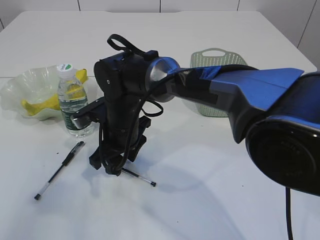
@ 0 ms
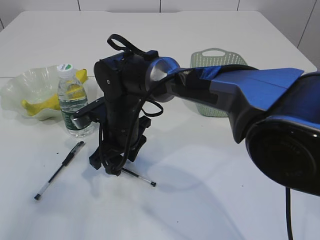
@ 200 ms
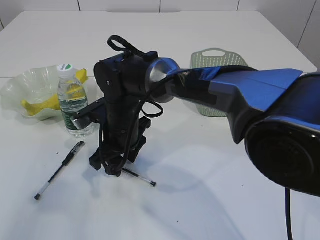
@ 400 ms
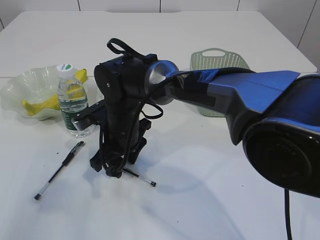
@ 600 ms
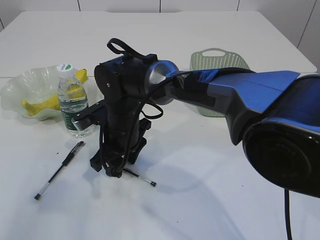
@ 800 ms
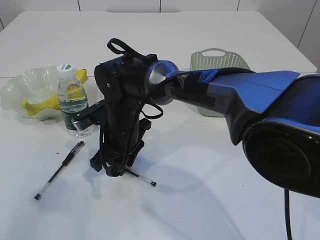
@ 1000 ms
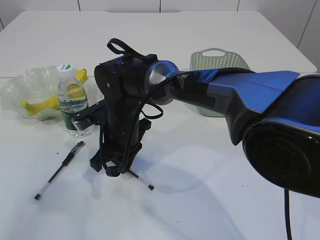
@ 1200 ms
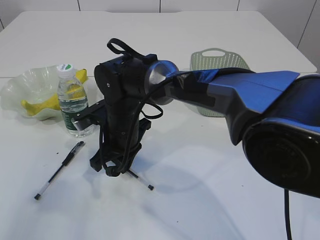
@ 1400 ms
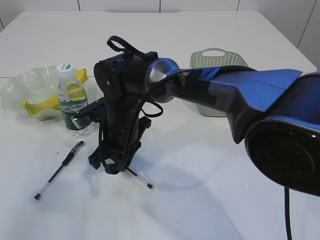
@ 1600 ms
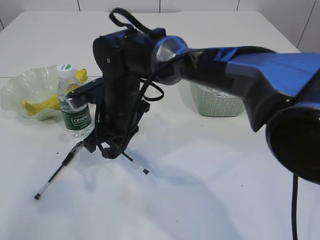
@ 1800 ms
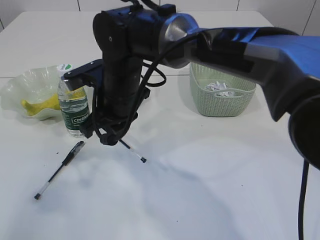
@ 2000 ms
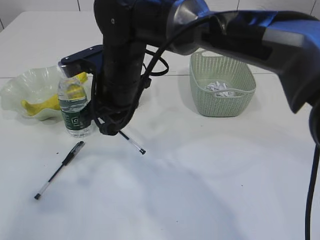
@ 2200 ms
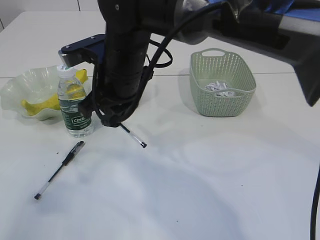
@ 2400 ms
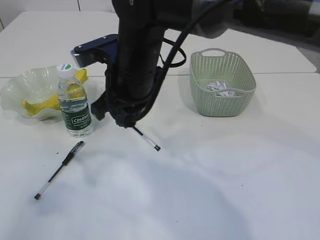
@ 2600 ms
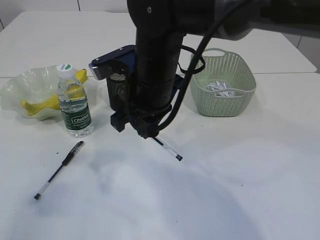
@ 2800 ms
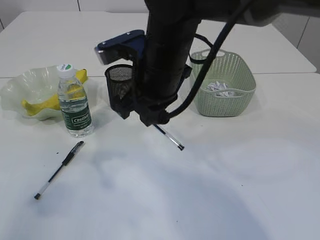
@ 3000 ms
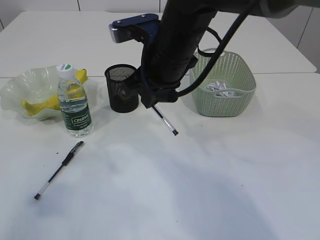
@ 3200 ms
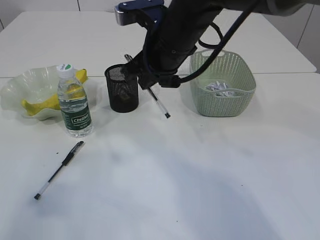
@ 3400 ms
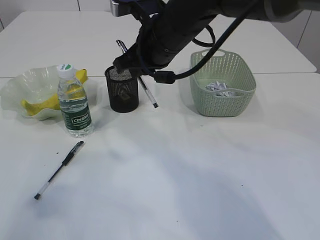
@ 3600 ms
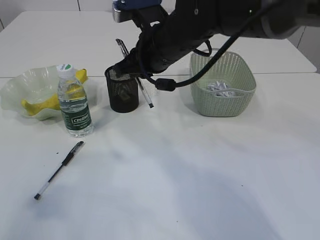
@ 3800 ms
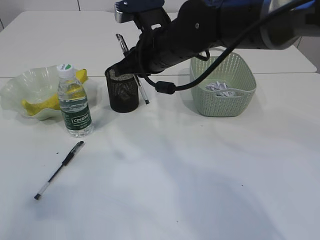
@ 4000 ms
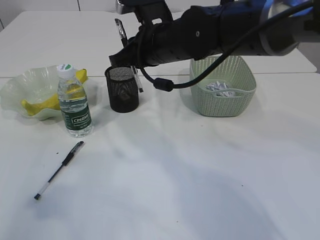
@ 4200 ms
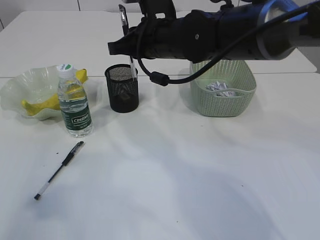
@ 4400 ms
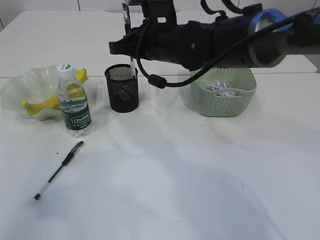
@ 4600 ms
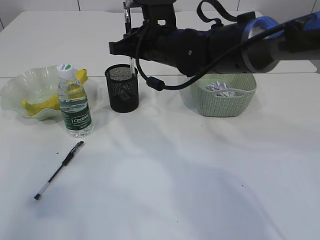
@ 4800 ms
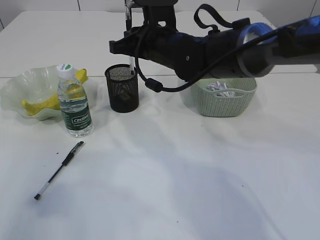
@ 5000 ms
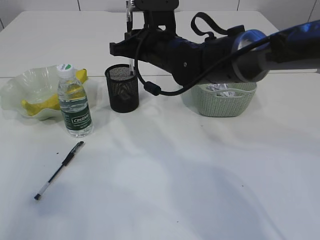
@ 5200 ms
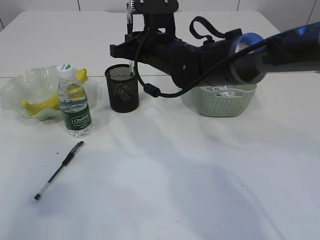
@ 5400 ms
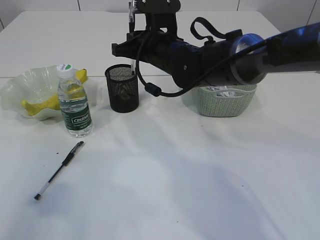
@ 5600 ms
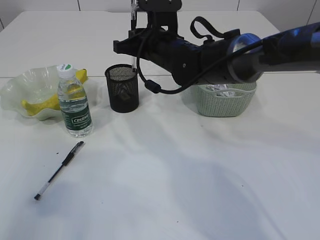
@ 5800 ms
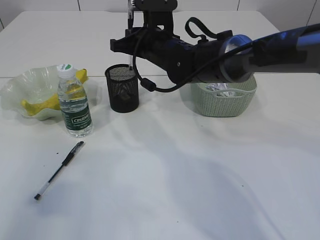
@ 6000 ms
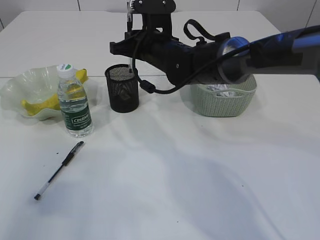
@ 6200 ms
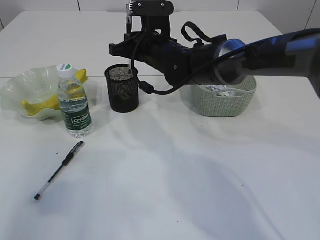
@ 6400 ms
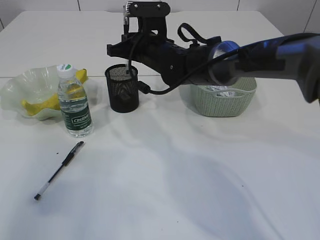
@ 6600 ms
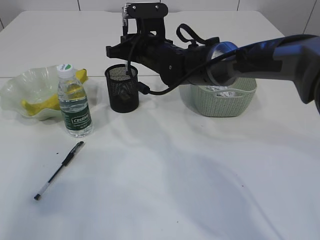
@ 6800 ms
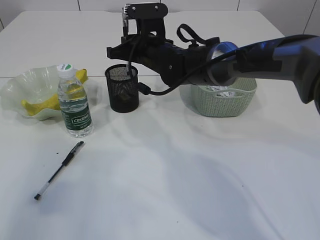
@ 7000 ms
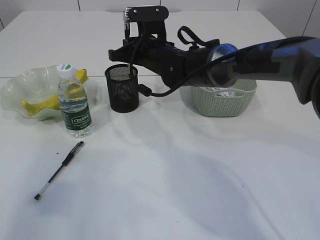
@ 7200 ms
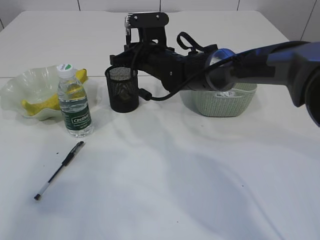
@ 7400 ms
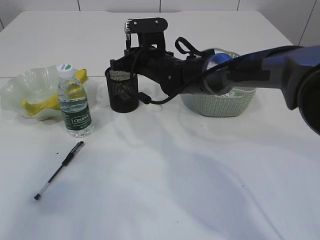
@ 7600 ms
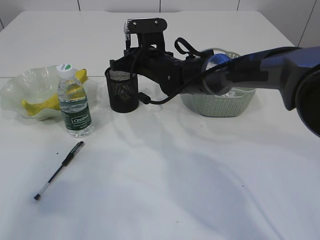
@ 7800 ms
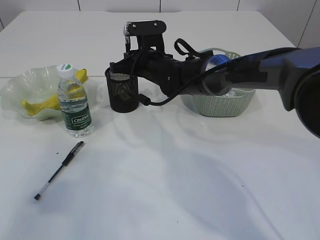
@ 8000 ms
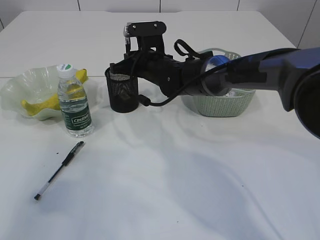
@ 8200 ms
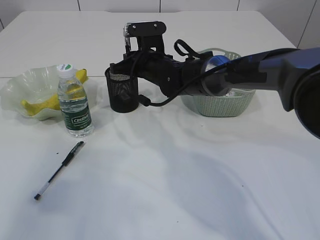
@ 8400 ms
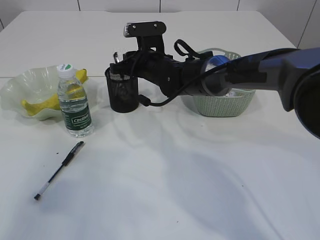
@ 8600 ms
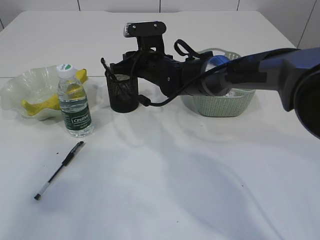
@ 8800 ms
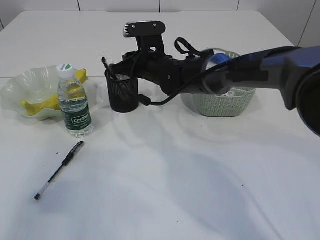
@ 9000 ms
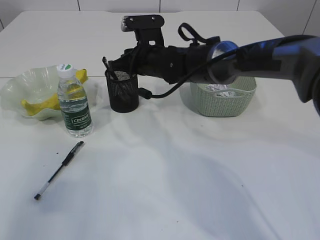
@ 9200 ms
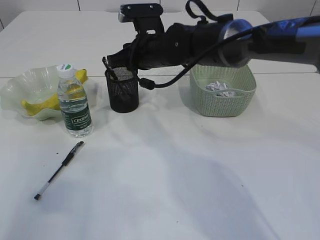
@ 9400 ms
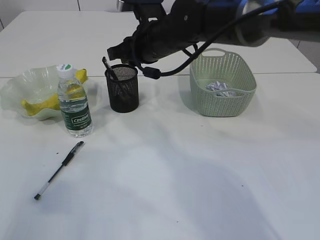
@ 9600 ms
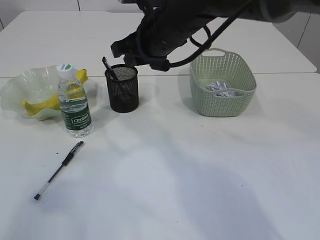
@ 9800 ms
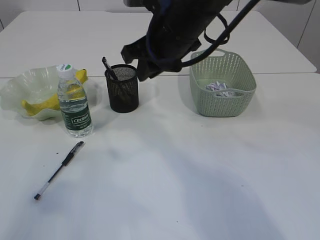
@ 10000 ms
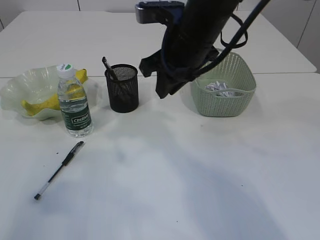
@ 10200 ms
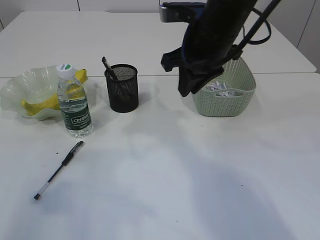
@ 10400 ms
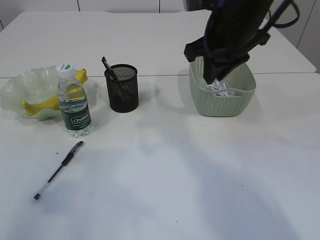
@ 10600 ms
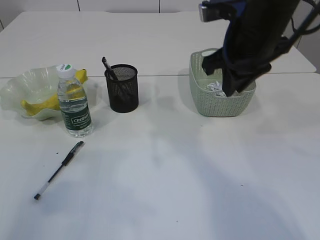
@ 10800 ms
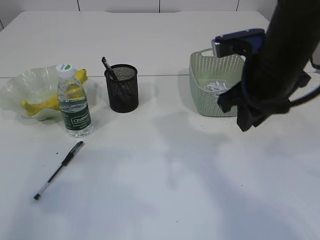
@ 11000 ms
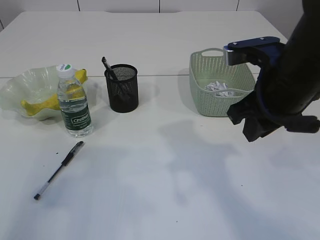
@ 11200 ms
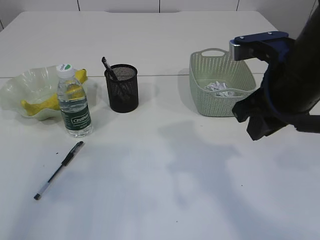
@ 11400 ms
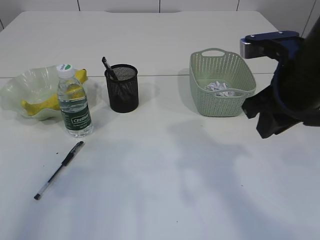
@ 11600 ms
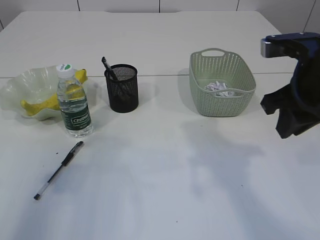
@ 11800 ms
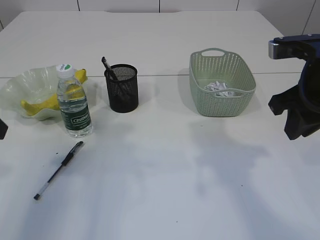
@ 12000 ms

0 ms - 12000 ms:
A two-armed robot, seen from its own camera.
Step, 2000 ms - 9800 ms: Place the pen into the pen holder.
0 ms - 1600 ms: The right gripper closes its fingers.
1600 ms - 3000 ms: The right gripper goes some 15 cm upward and to the right.
3000 ms - 4400 ms: The right gripper is displaced forward by approximately 10 cm.
4400 ms - 6000 ms: The right gripper ends up roughly 5 cm from where it was.
6000 ms - 7600 ms: The right gripper changes place by some 5 cm.
7600 ms - 9000 ms: Neither gripper changes place.
9000 ms - 10400 ms: The right gripper goes some 20 cm upward, backward and to the right.
10400 ms - 12000 ms: The right gripper goes approximately 15 cm to the right and backward, while the left gripper moves forward, about 10 cm.

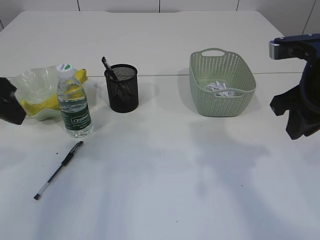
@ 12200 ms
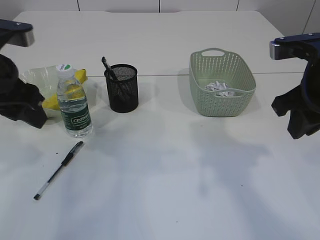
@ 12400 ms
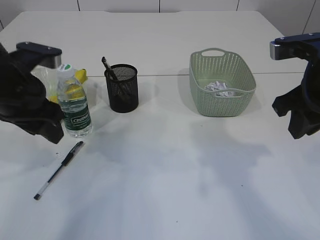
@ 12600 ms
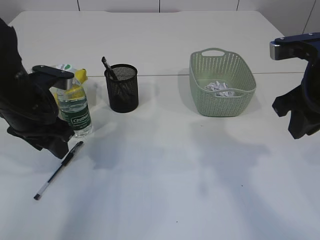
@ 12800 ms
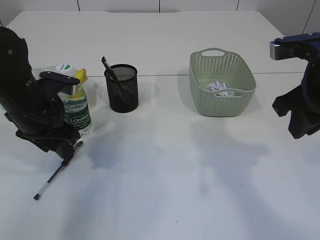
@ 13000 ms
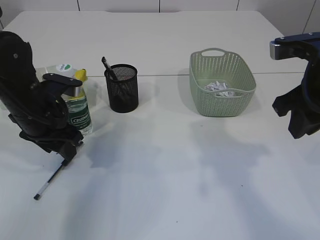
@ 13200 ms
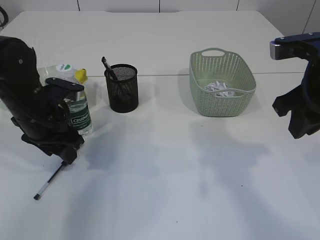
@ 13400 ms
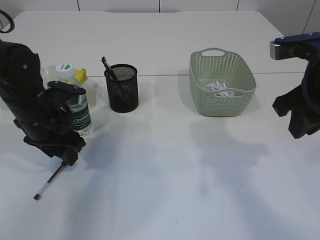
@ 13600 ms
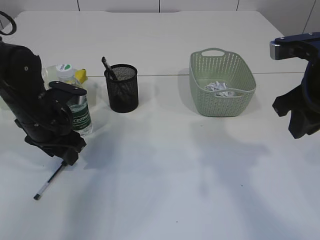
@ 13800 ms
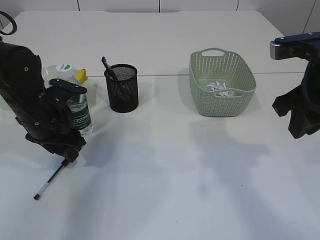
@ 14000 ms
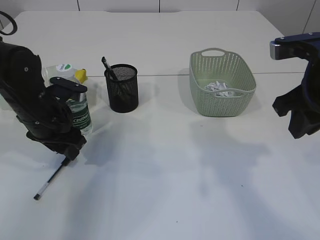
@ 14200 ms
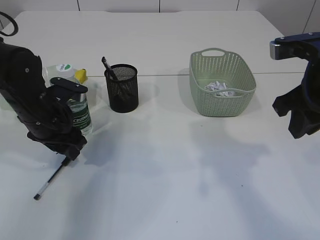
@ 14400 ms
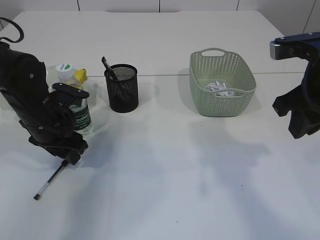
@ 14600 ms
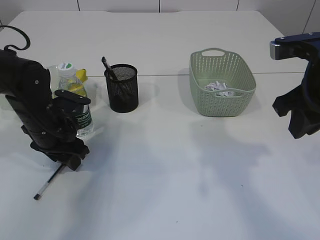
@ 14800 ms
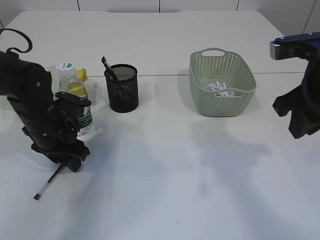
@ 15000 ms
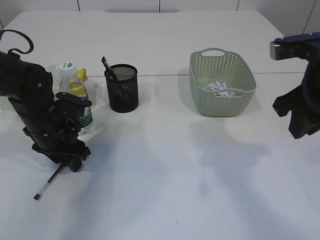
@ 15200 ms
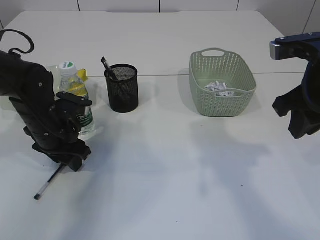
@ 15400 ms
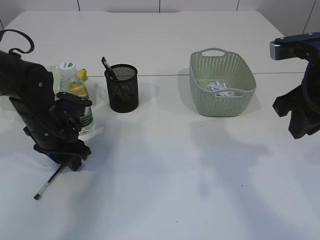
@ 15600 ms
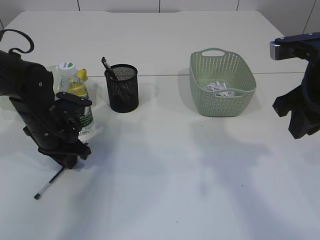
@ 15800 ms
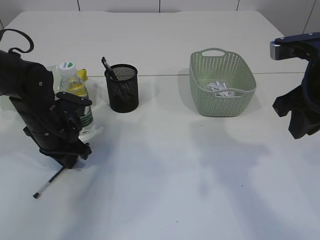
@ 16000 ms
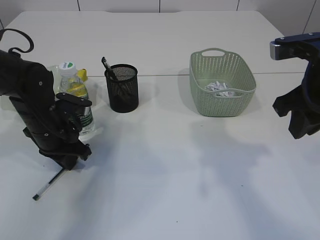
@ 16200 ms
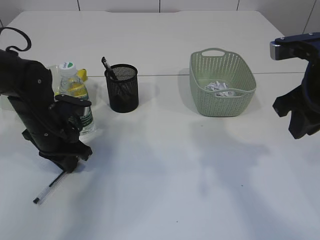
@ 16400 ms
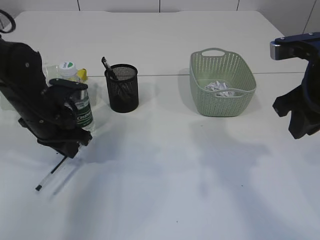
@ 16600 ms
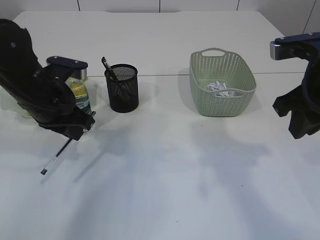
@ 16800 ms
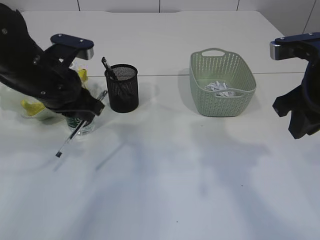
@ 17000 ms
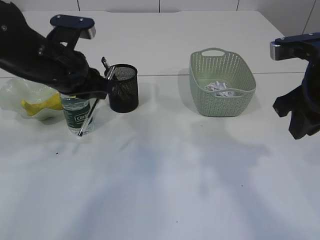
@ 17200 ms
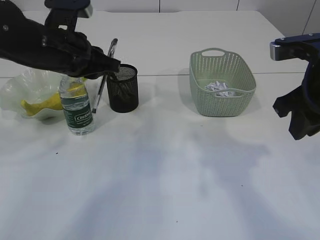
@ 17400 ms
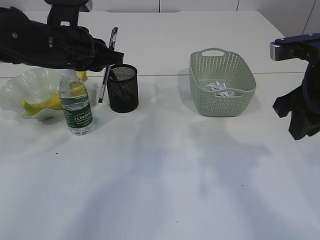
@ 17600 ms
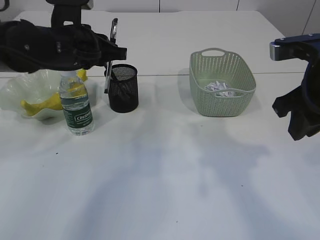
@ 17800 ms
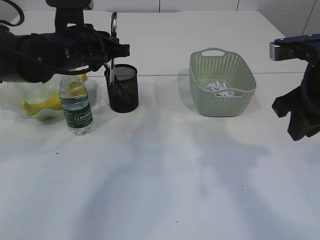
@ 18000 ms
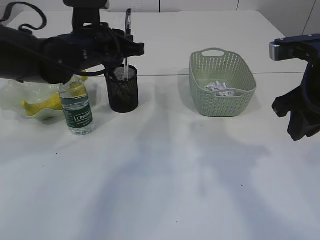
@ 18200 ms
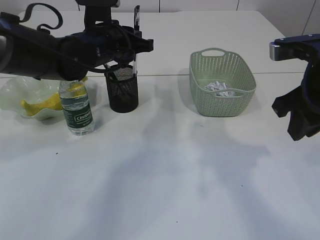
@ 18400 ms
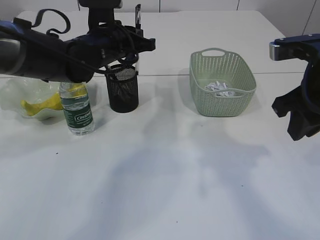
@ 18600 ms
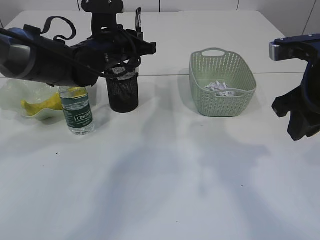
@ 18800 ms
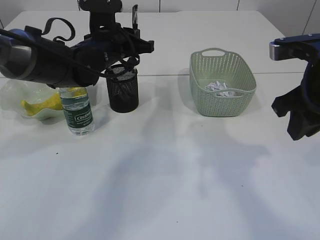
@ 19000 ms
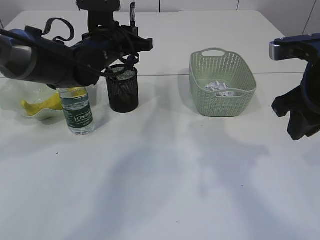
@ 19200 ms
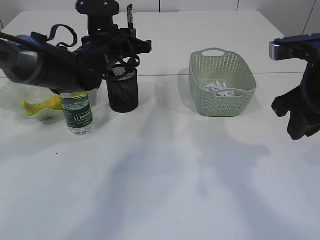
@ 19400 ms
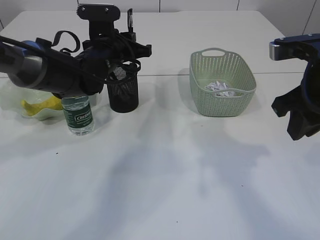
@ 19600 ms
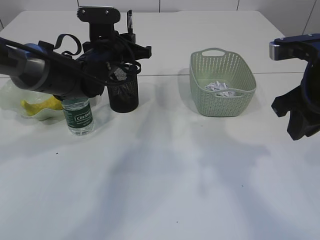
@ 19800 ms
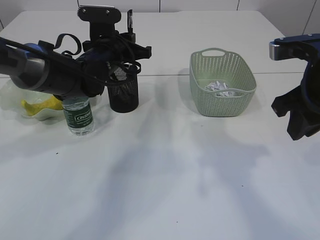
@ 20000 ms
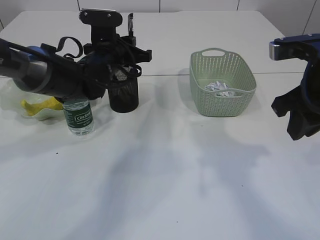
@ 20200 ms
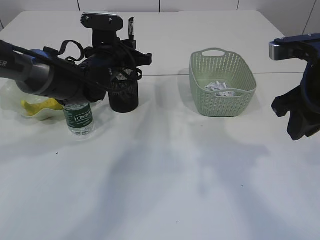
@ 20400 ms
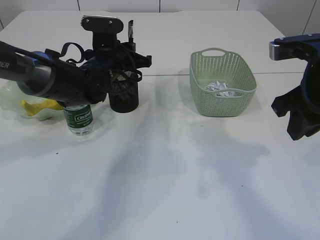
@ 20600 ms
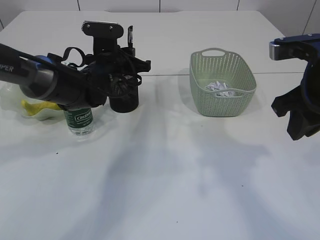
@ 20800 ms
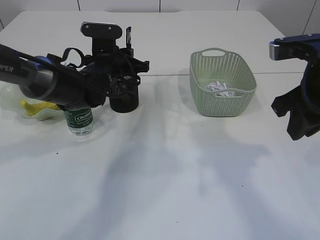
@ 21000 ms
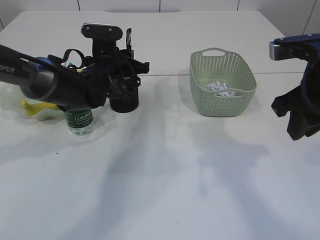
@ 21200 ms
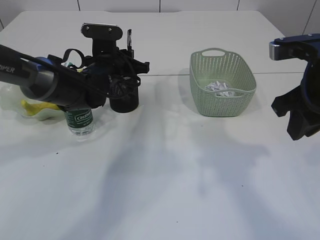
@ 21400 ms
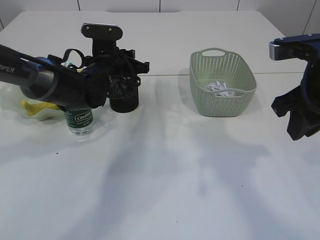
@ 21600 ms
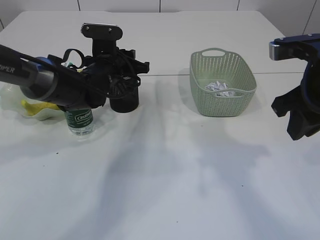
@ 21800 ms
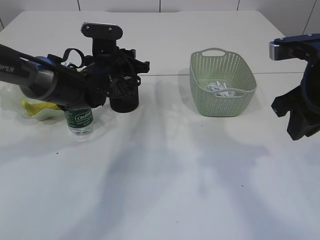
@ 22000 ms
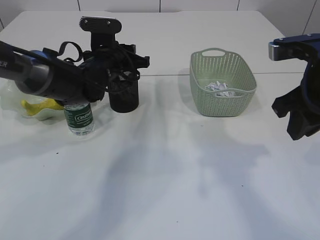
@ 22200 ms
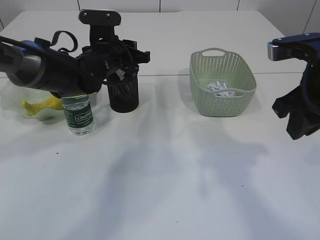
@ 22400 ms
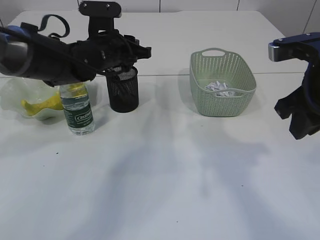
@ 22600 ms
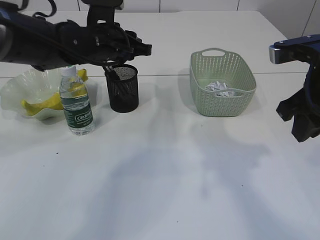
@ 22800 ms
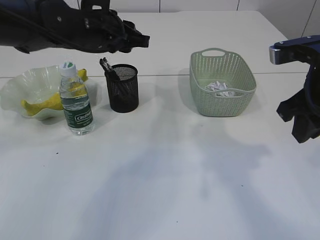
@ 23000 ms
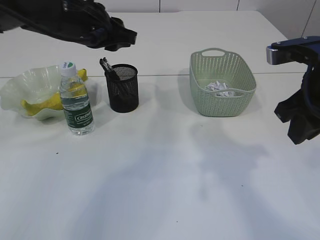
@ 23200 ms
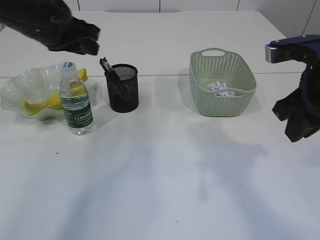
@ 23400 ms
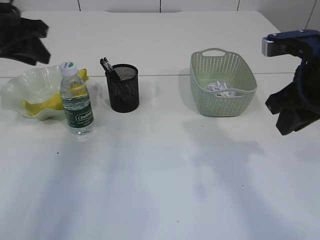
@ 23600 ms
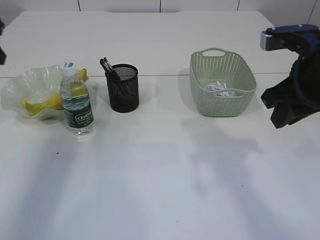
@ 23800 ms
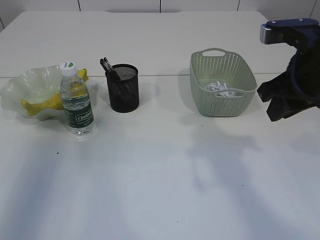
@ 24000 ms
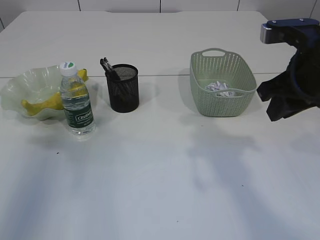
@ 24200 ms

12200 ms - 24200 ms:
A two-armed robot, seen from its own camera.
Step, 12200 ms - 16800 ms: Pick up the pen with left arm.
Step, 17000 ms - 22800 ms: Place the pen into the pen holder.
12200 ms - 13800 ms: The left gripper heads downward, forward and to the right, covering about 15 cm.
13800 ms - 15200 ms: The grippers move only a little.
15200 ms - 16600 ms: The left gripper closes its fingers.
16600 ms - 18200 ms: The left gripper shifts roughly 10 cm upward, to the right and forward.
18200 ms - 19800 ms: The left gripper changes place by roughly 5 cm.
19800 ms - 22600 ms: There are only small adjustments of the grippers.
22600 ms - 24200 ms: The left gripper travels to the left, backward and upward by some 30 cm.
